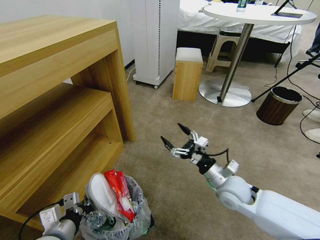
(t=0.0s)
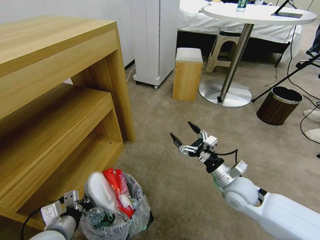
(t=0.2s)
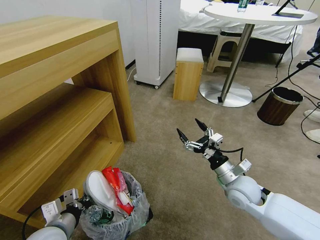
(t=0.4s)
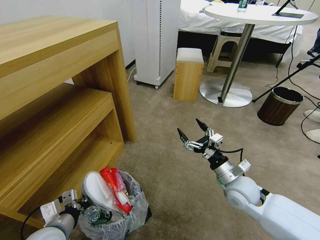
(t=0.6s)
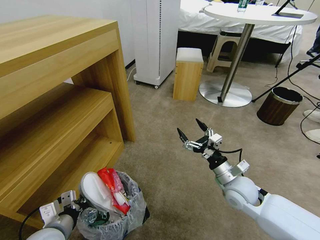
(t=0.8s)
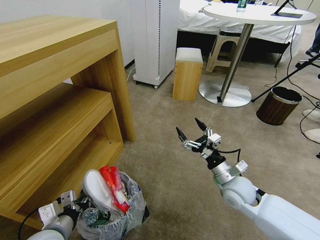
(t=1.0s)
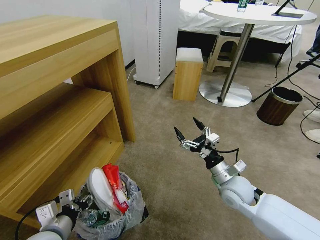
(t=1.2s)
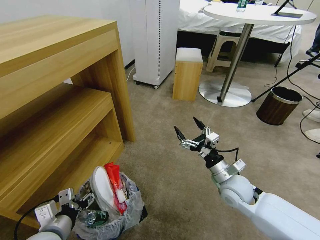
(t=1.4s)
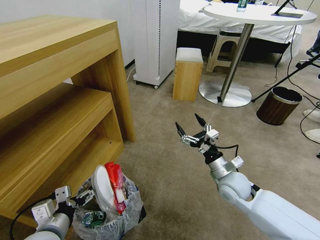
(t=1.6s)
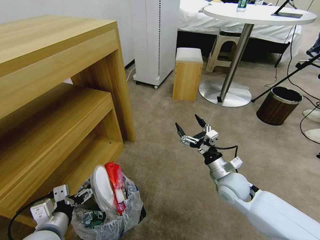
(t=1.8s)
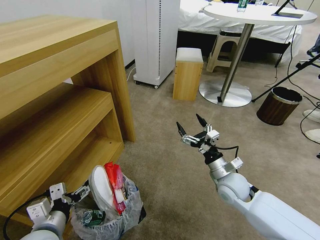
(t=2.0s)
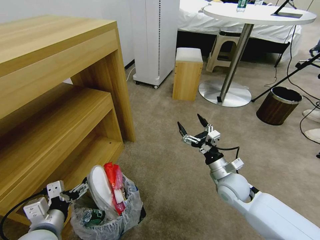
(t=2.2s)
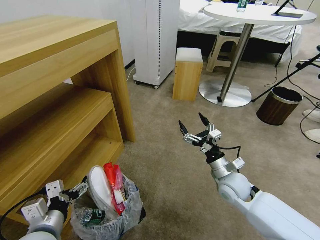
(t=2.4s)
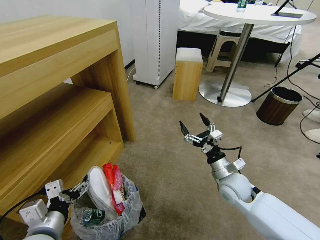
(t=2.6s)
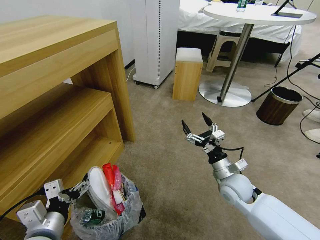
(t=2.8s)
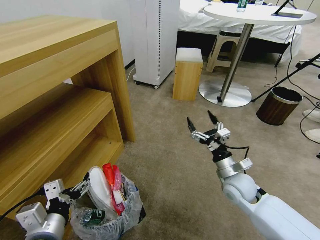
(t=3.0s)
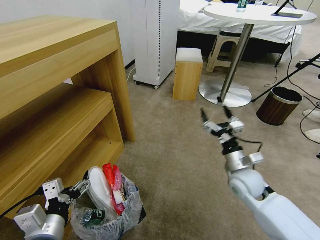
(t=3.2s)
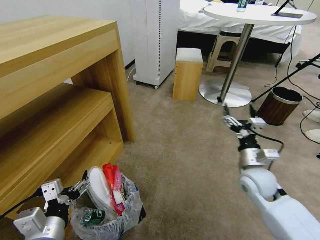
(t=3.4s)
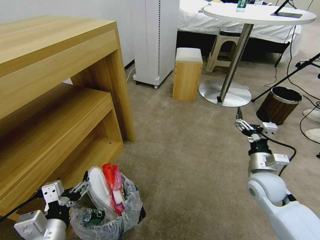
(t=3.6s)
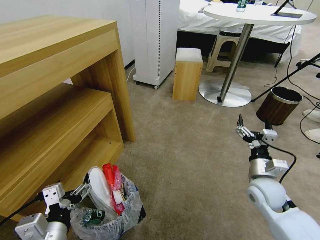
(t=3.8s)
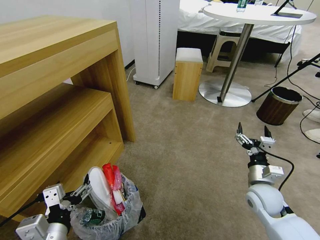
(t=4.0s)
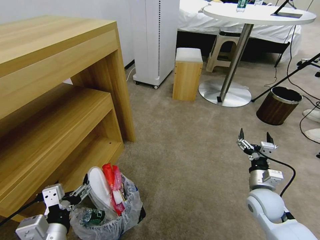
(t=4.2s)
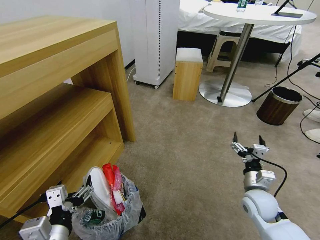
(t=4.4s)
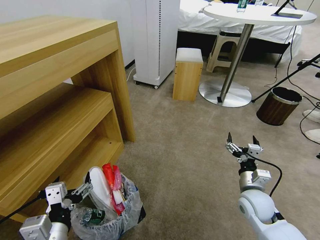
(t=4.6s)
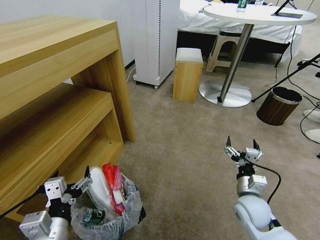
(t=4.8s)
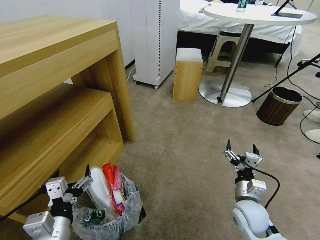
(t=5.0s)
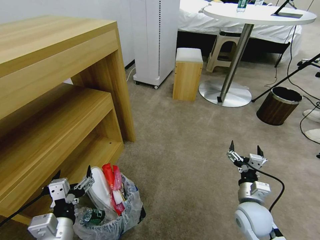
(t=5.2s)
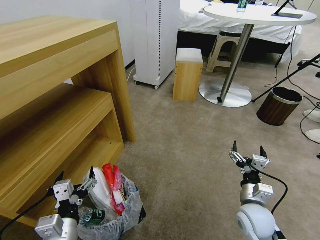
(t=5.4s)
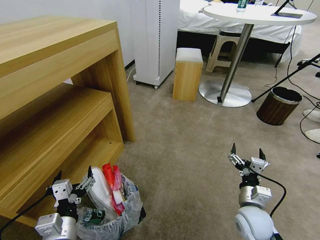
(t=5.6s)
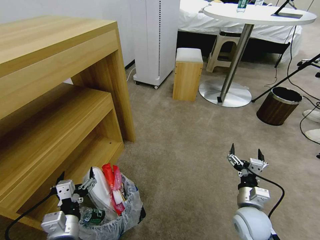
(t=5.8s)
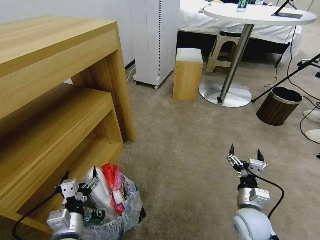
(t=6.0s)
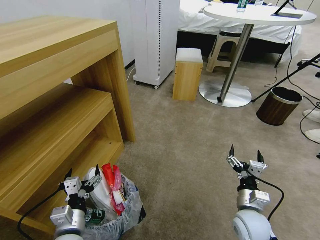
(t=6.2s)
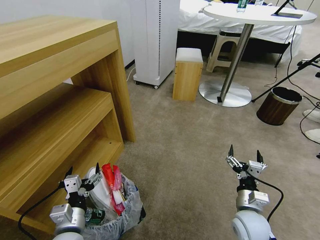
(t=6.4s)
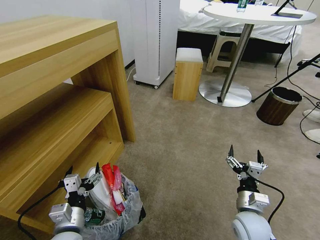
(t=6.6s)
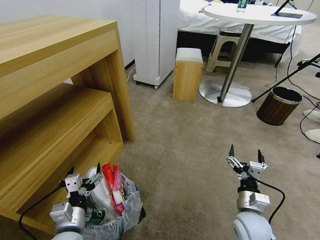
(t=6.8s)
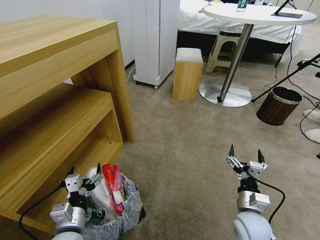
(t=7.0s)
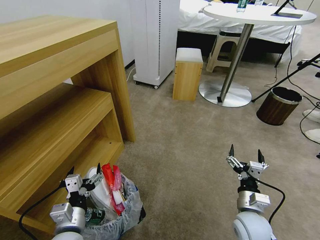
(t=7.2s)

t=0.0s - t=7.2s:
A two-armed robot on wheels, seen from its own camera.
Task of the whole recording: Pick up the trash bin and place the garbage on the floor into it.
t=0.0s - t=1.4s: The left gripper opens up.
t=1.4s - t=2.8s: The grippers make only small movements.
t=2.8s - t=4.4s: The left gripper changes place by some 5 cm, while the right gripper shifts some 10 cm to the right.
t=4.4s - t=5.8s: The left gripper travels downward by approximately 5 cm. The right gripper travels backward by roughly 5 cm.
t=5.8s - t=7.2s: The grippers stay close to where they were, moving slightly.
